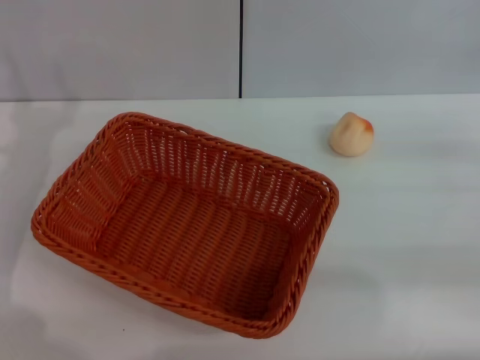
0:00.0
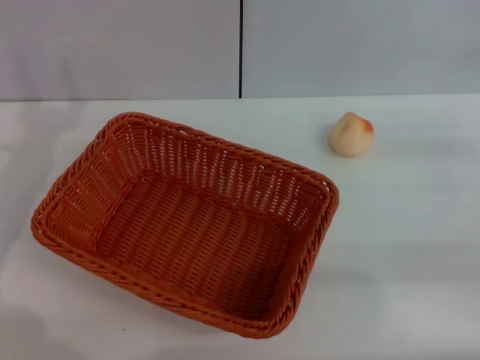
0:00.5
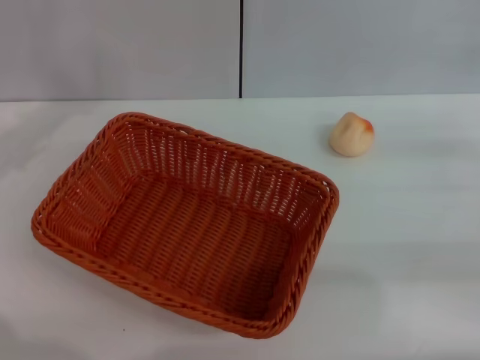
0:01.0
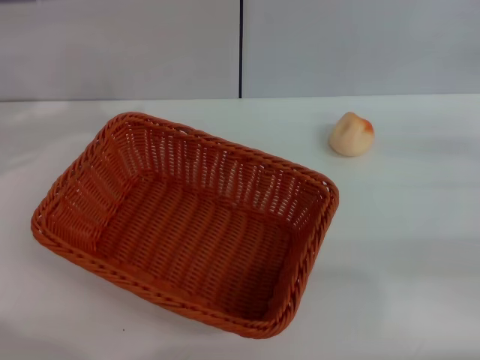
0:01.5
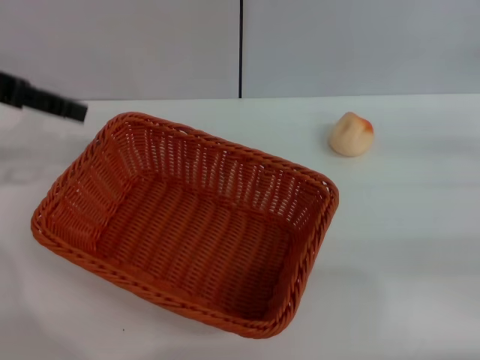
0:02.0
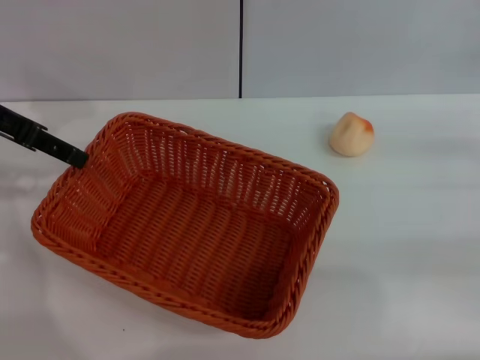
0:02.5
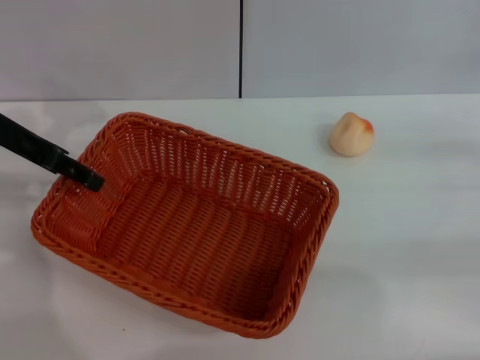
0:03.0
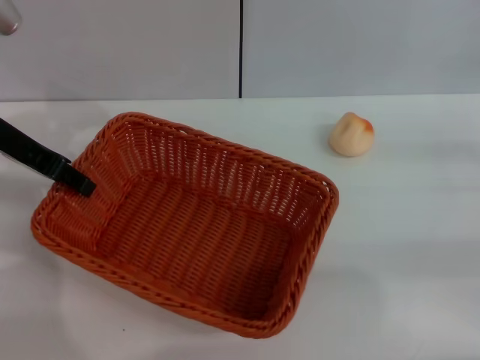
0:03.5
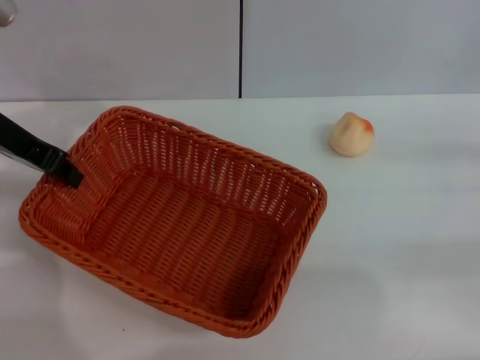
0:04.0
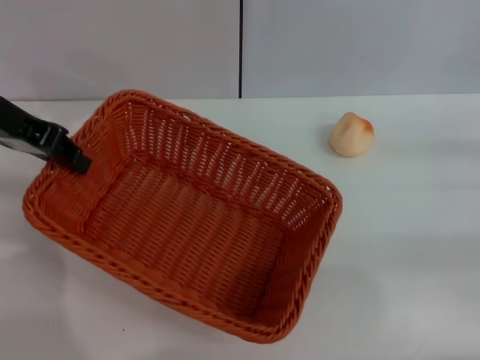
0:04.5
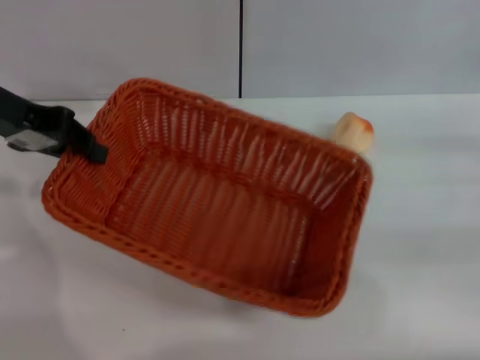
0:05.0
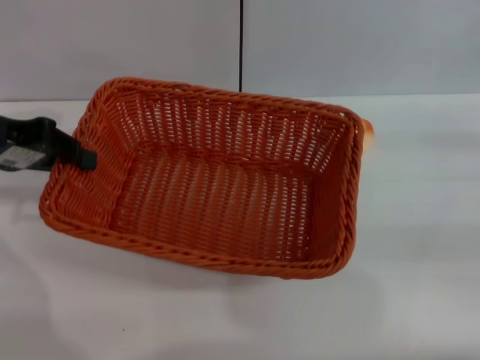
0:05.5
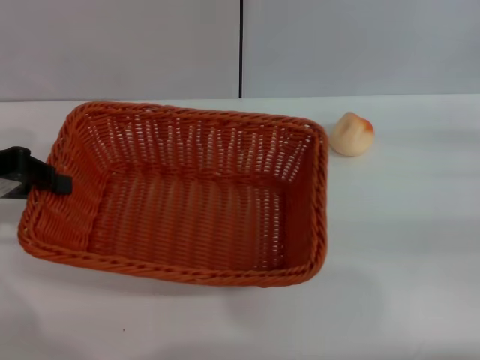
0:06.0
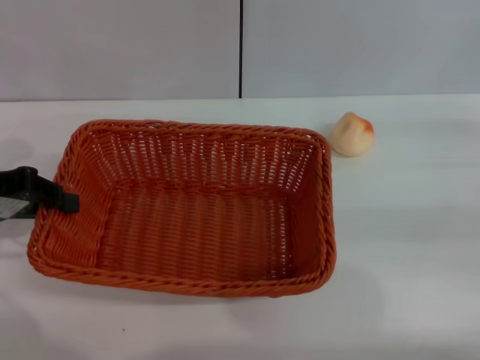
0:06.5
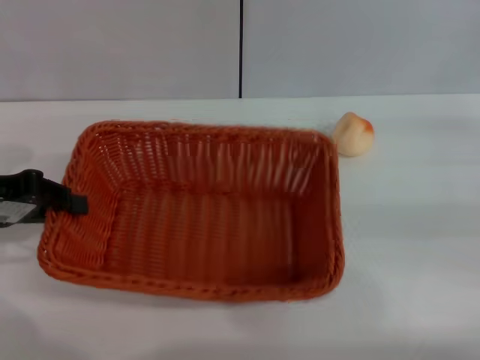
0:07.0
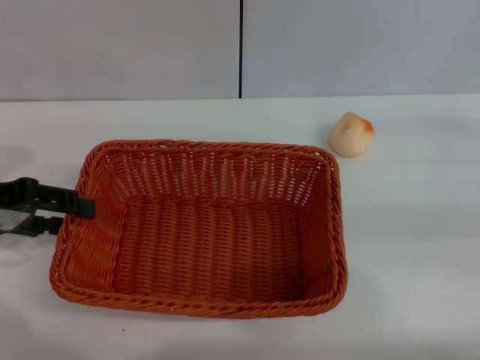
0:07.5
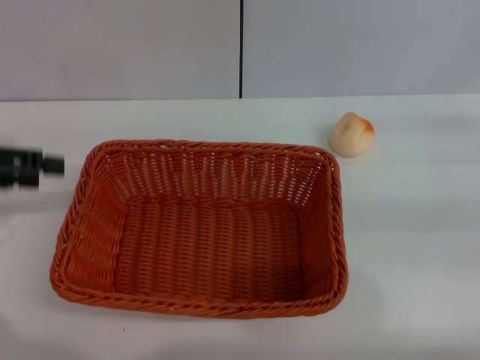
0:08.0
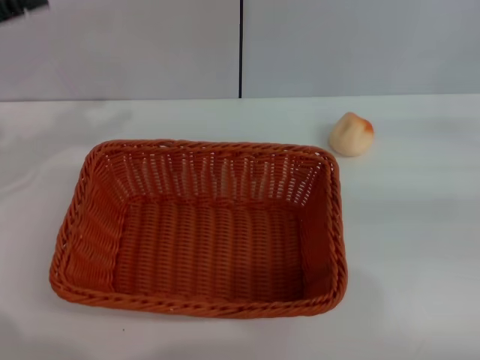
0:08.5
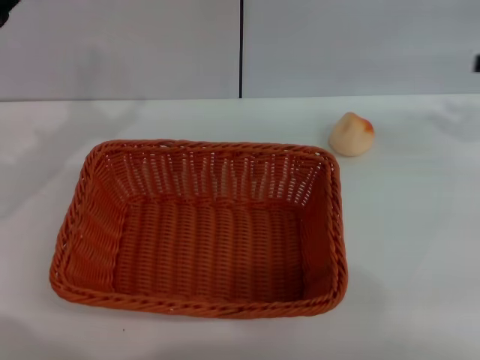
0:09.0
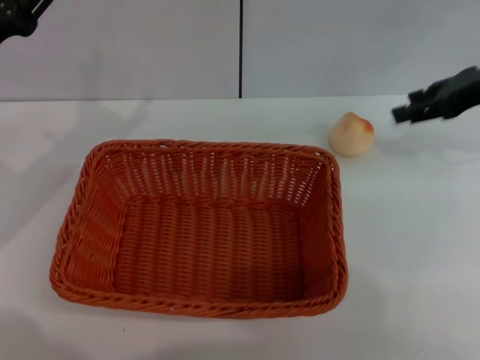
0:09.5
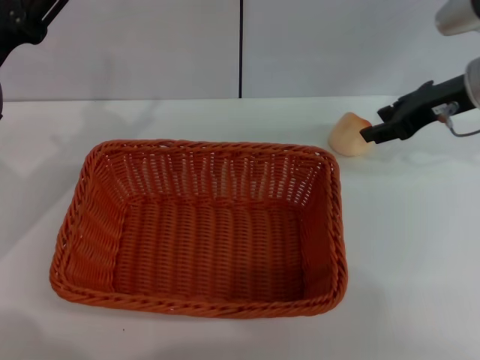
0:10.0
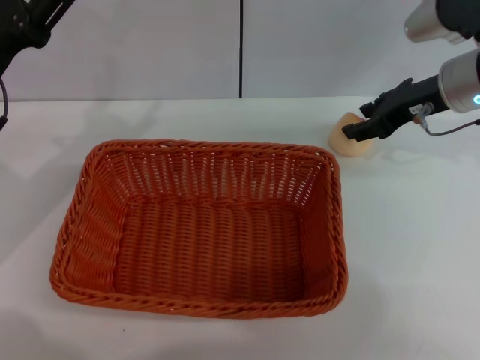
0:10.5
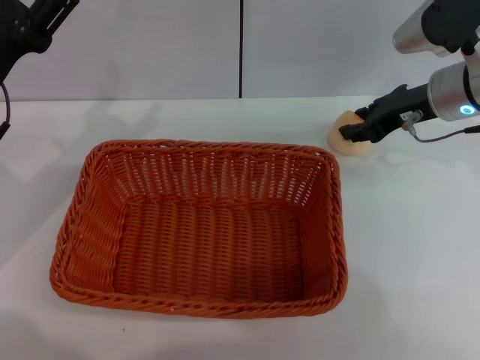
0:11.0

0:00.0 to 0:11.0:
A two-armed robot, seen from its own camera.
Step, 0:00.0 to 0:08.0: Move the basket to the center of view with the left gripper.
0:00.0 to 0:02.0: The left gripper is displaced upward and forward by roughly 15 cm.
0:02.0 to 0:03.5: The left gripper travels downward by some 5 cm.
0:03.5 to 0:05.5: The left gripper moves approximately 5 cm, and closes its fingers.
0:05.5 to 0:07.5: The left gripper shifts by some 5 cm, and opens its fingers.
0:07.5 to 0:09.0: The left gripper opens.
0:09.0 to 0:11.0: The right gripper goes roughly 15 cm to the left.

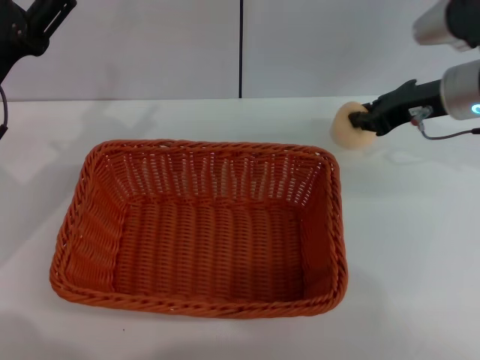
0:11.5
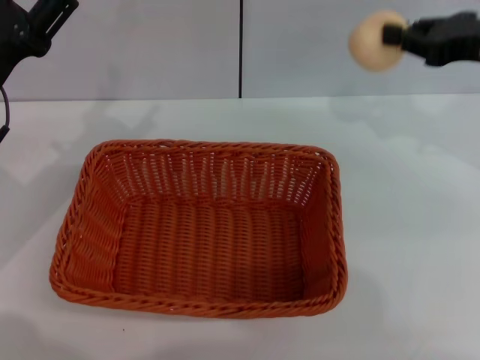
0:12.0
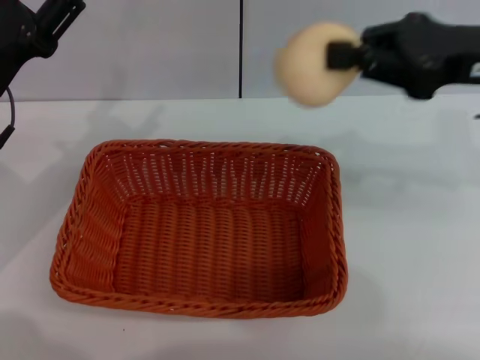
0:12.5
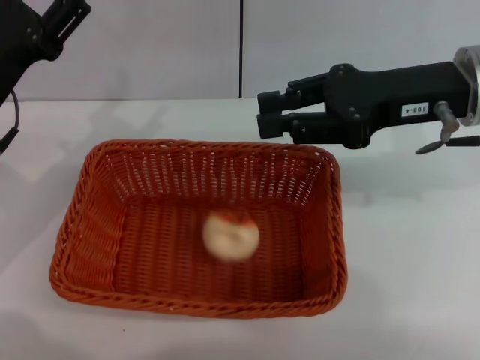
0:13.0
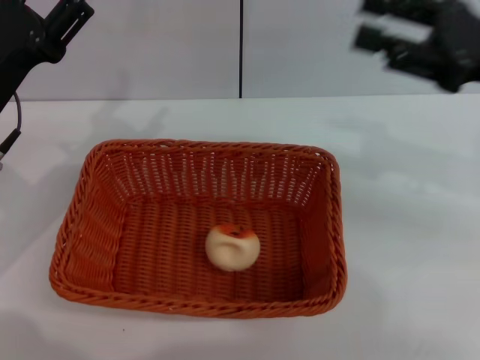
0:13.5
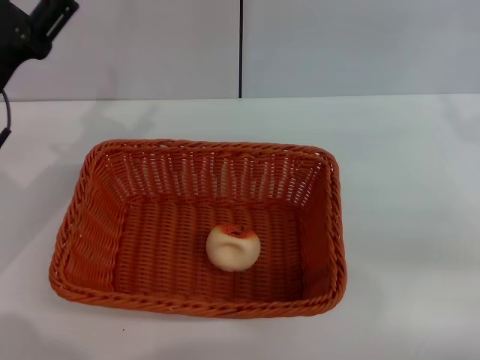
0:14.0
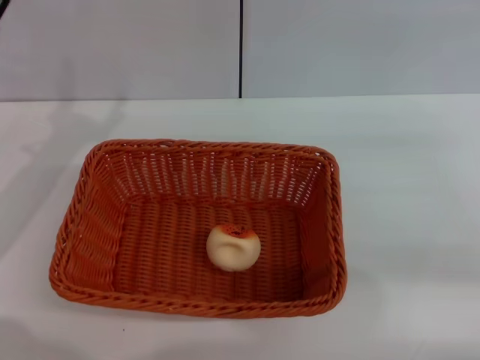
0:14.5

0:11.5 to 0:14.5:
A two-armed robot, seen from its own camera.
Step, 0:12.0 to 0:12.5: Place the egg yolk pastry into the basket with the right gripper.
0:11.5 to 0:13.0: The right gripper goes about 10 cm backward and upward.
0:13.0 to 0:14.5: The right gripper moves to the right and downward, some 15 cm, and opens.

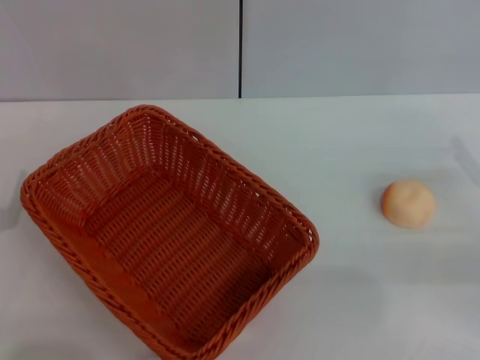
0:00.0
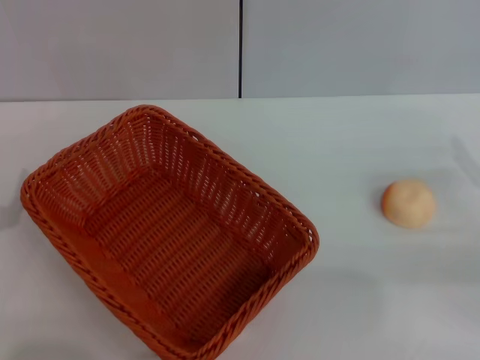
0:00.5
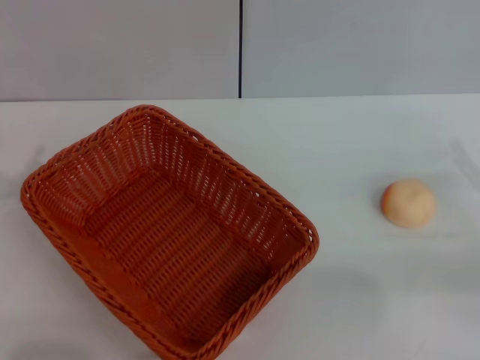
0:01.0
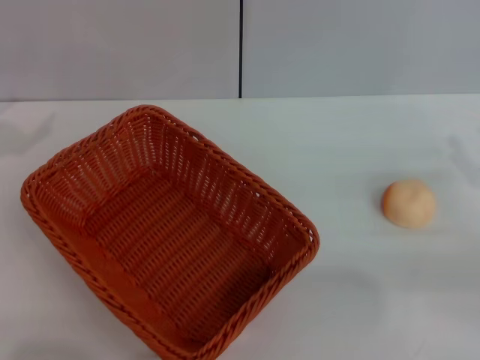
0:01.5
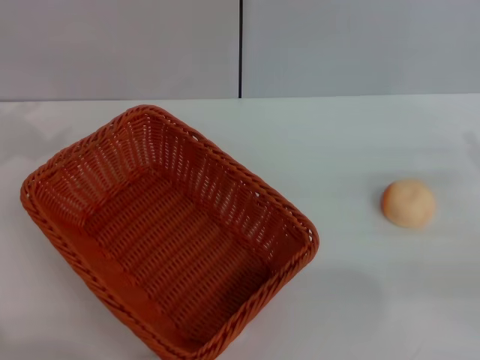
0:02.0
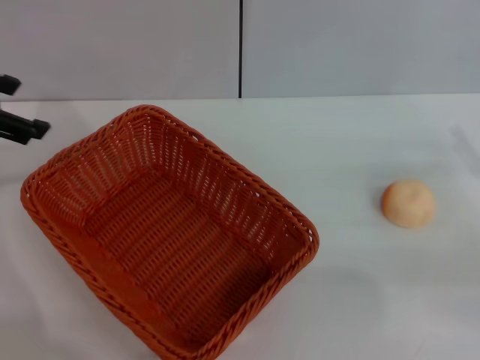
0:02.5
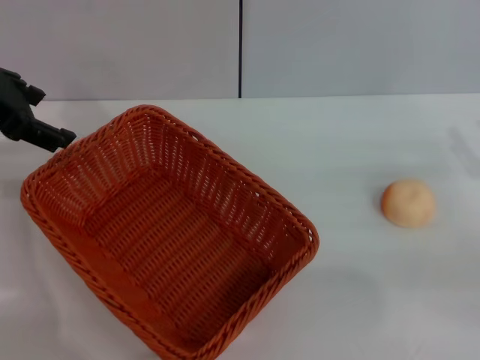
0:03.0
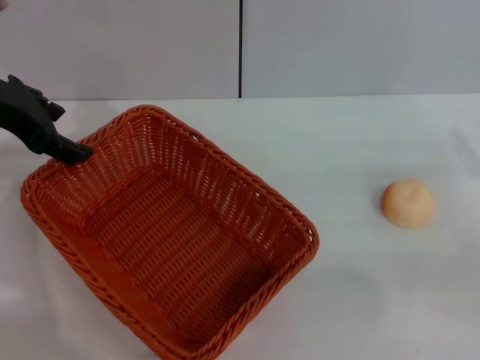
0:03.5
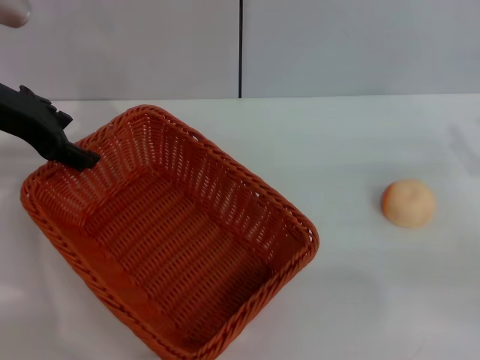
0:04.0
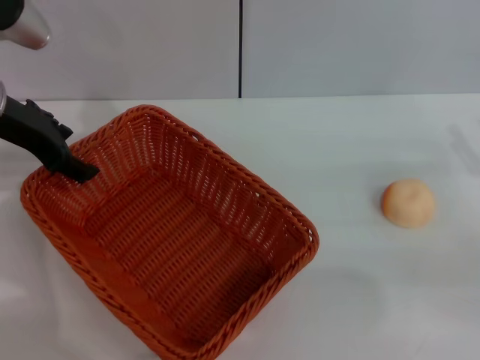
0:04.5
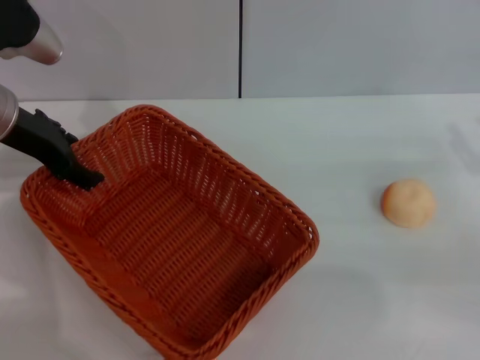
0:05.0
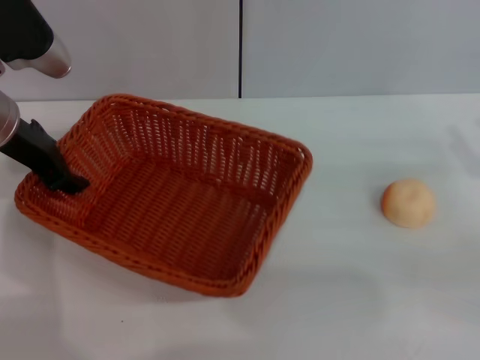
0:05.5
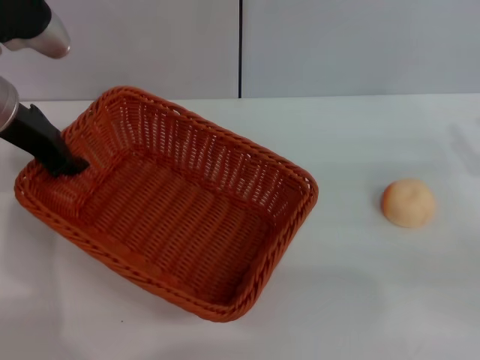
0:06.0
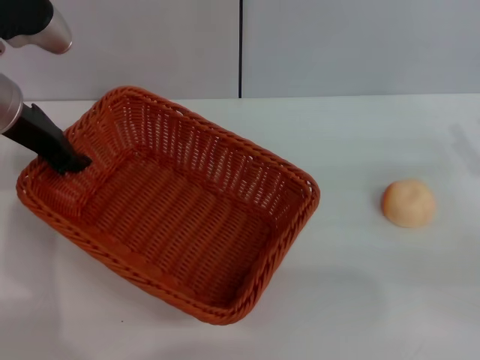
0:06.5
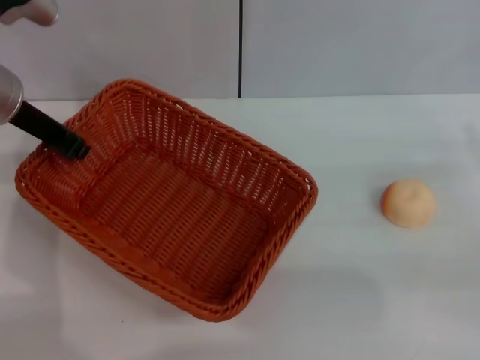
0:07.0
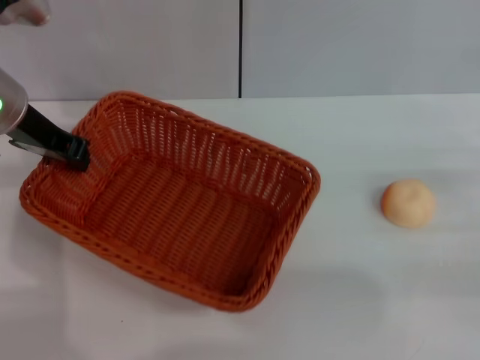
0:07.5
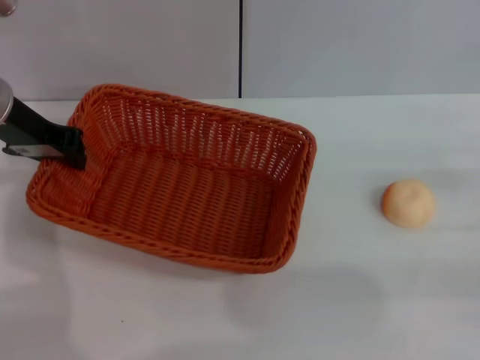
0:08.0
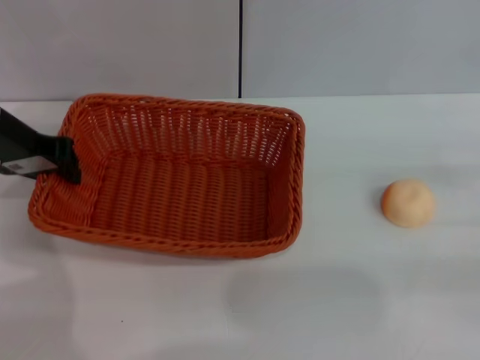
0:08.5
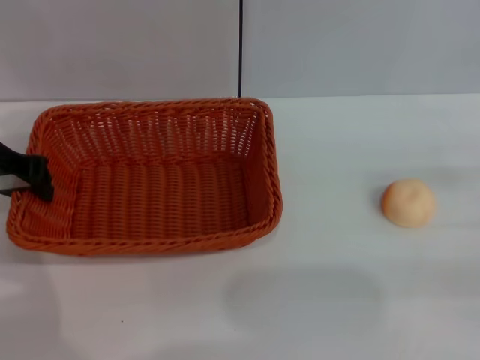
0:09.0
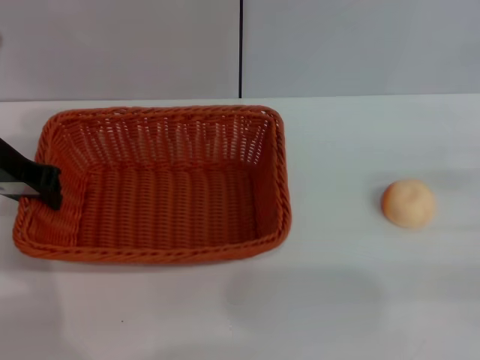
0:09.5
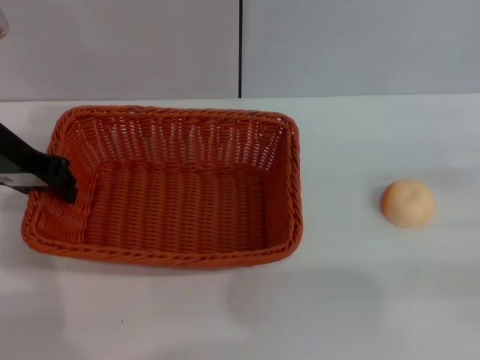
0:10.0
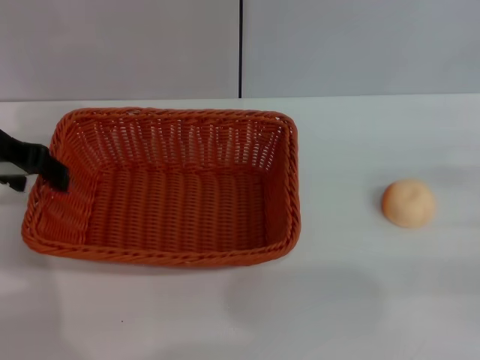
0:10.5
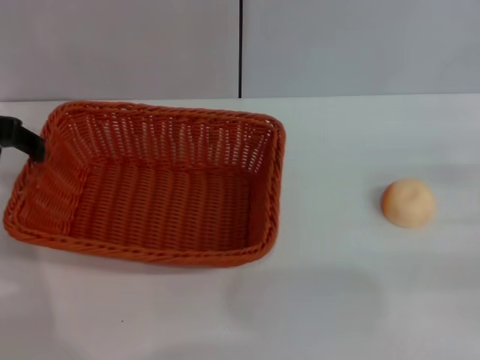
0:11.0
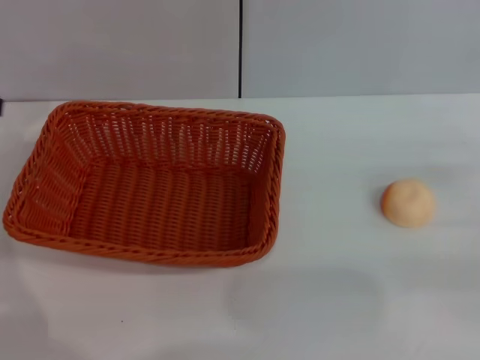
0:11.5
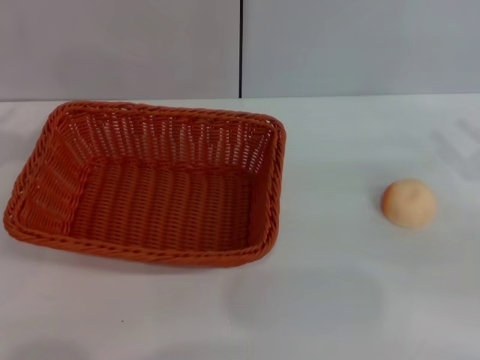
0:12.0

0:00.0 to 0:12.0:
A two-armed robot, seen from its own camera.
Step, 0:00.0 to 0:11.0: Move the basket to the center of view with the left gripper.
0:02.0 to 0:04.0: The left gripper travels to the right and forward by some 15 cm.
0:04.0 to 0:06.0: The left gripper closes.
0:08.0 to 0:10.0: The grippers make only small movements.
0:10.0 to 0:12.0: The left gripper goes roughly 15 cm to the left, backward and upward, and opens.
